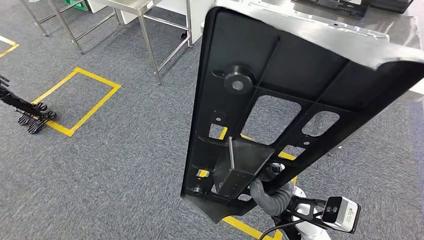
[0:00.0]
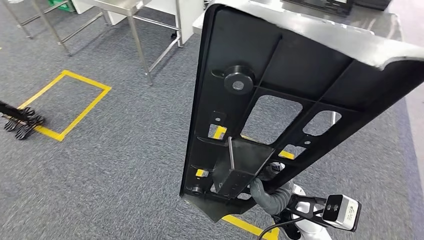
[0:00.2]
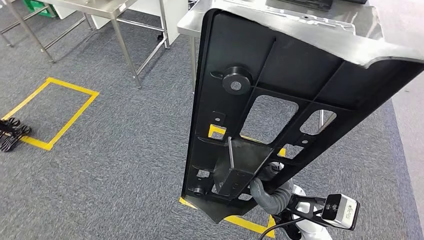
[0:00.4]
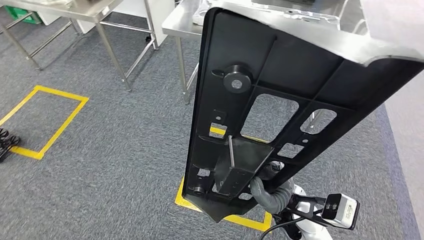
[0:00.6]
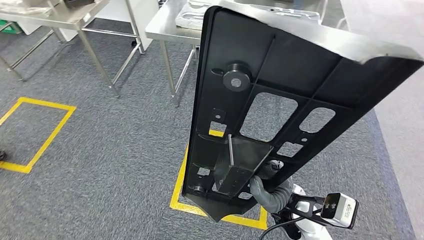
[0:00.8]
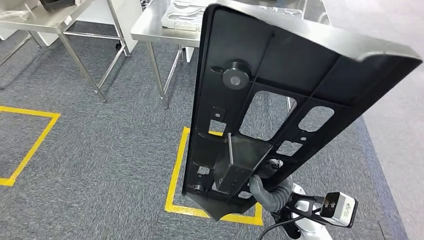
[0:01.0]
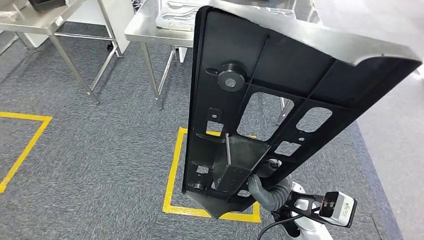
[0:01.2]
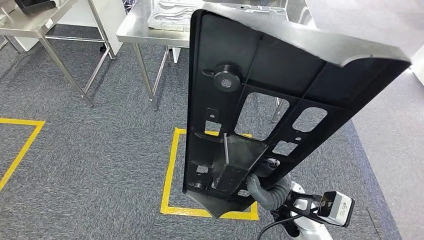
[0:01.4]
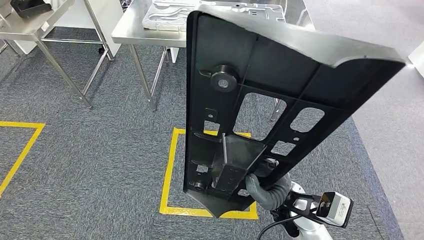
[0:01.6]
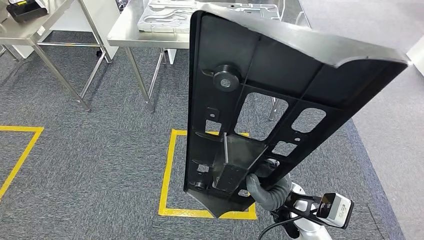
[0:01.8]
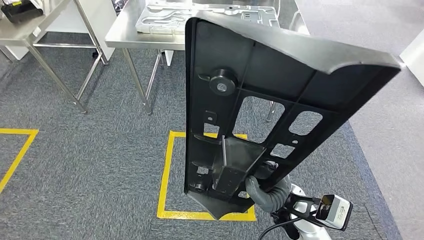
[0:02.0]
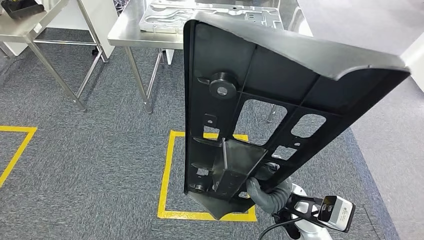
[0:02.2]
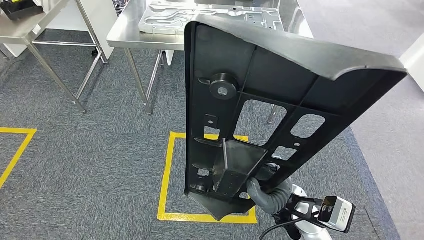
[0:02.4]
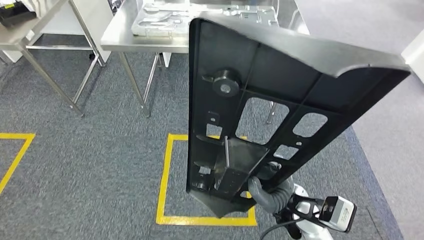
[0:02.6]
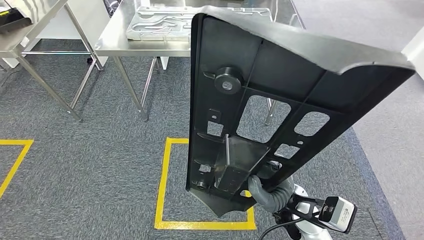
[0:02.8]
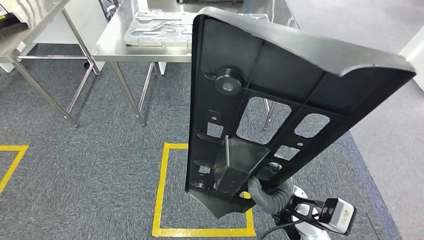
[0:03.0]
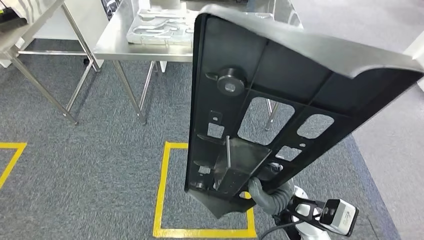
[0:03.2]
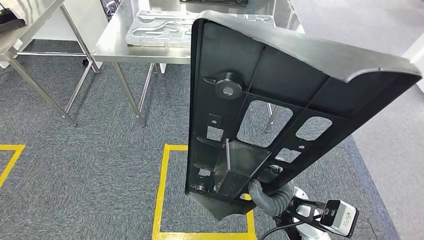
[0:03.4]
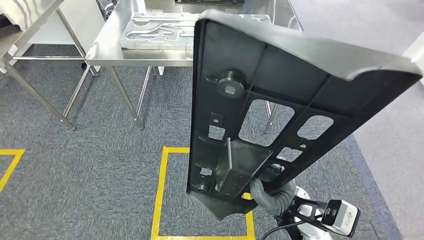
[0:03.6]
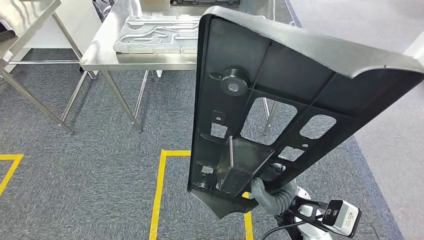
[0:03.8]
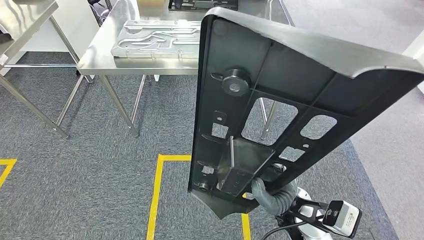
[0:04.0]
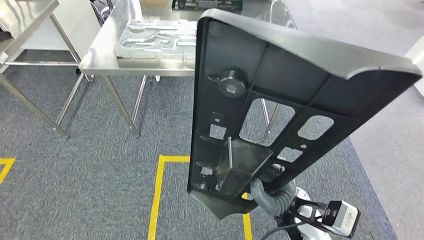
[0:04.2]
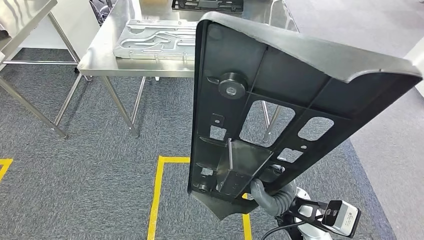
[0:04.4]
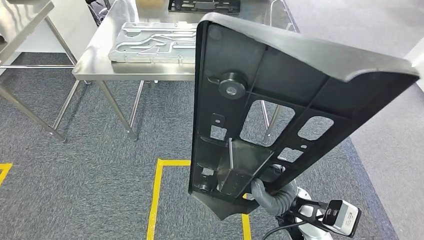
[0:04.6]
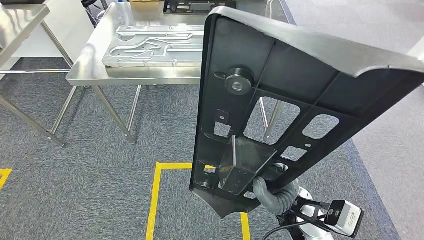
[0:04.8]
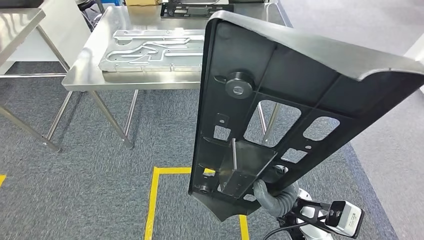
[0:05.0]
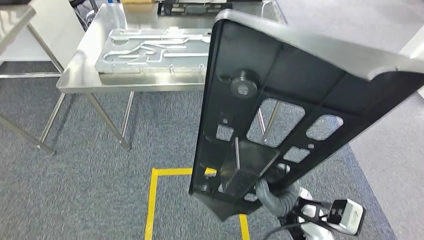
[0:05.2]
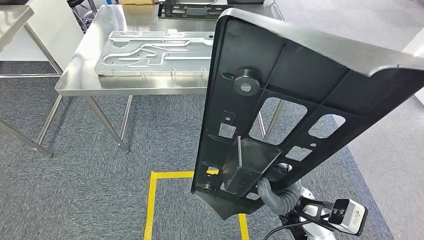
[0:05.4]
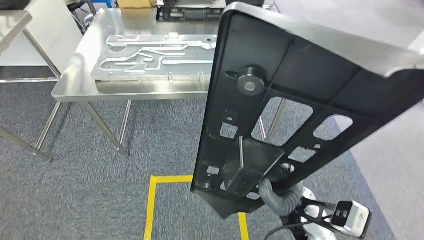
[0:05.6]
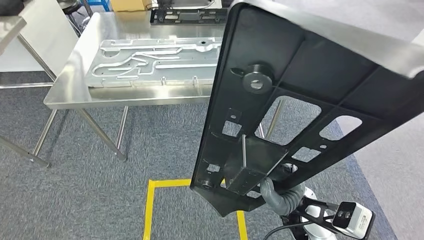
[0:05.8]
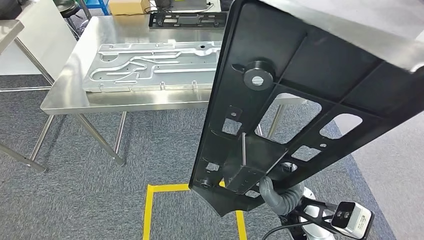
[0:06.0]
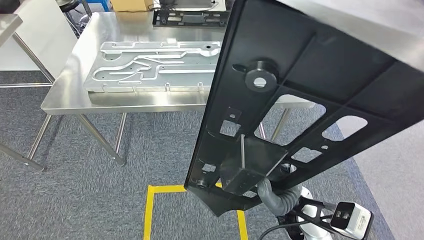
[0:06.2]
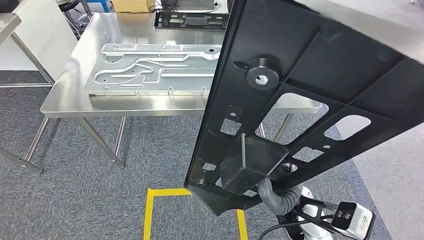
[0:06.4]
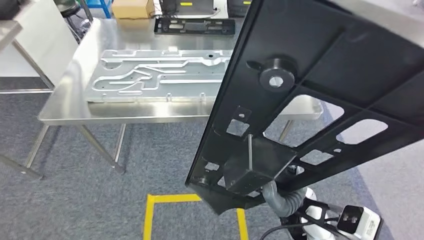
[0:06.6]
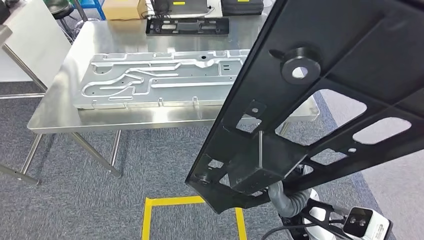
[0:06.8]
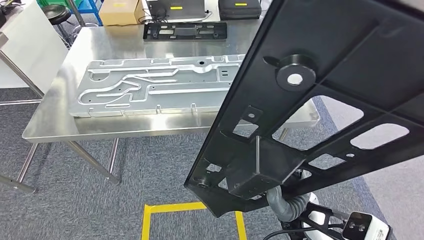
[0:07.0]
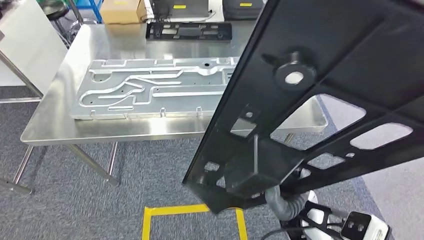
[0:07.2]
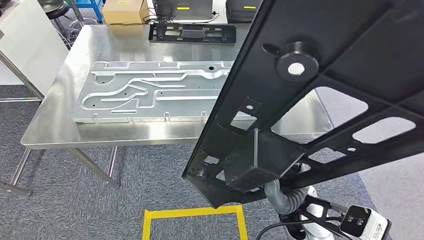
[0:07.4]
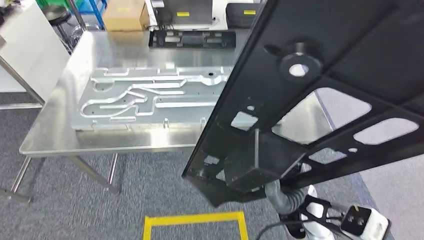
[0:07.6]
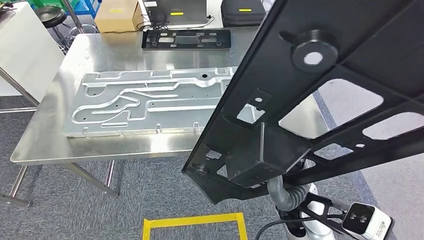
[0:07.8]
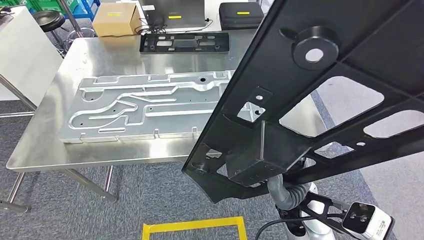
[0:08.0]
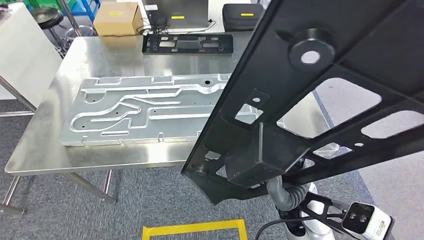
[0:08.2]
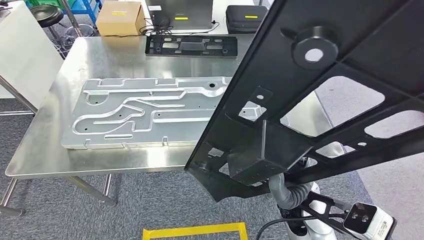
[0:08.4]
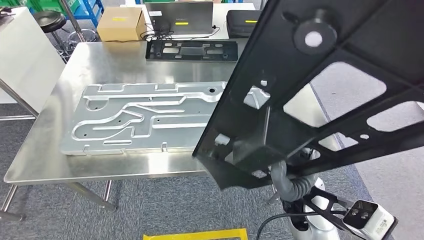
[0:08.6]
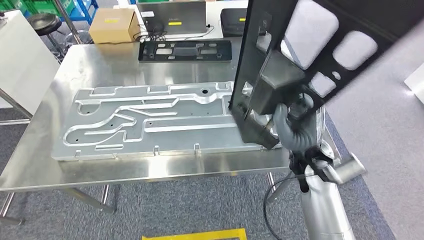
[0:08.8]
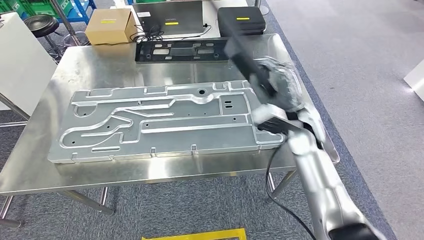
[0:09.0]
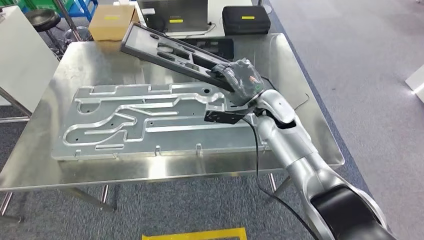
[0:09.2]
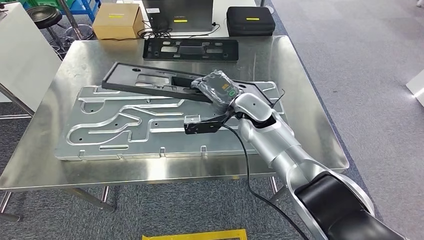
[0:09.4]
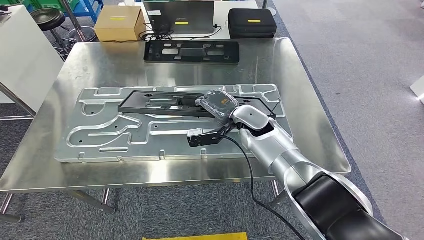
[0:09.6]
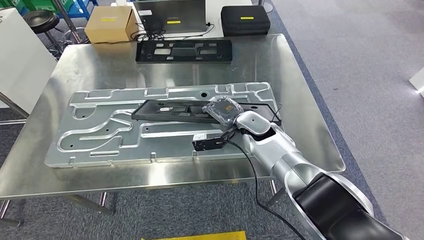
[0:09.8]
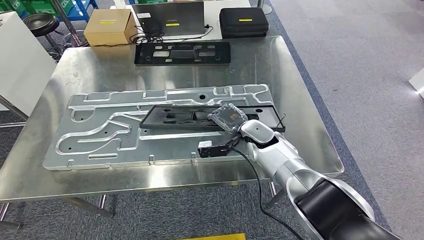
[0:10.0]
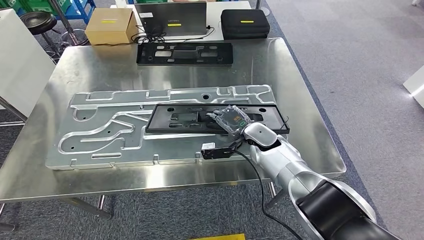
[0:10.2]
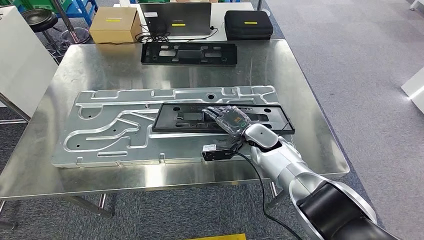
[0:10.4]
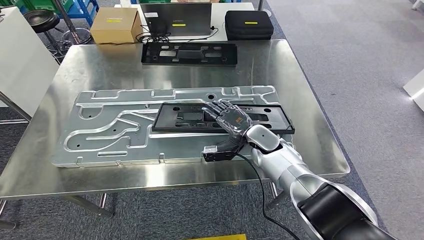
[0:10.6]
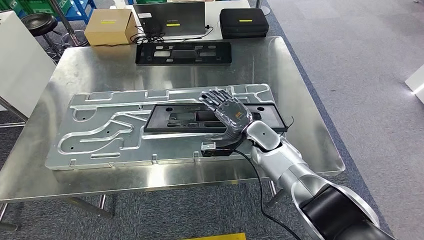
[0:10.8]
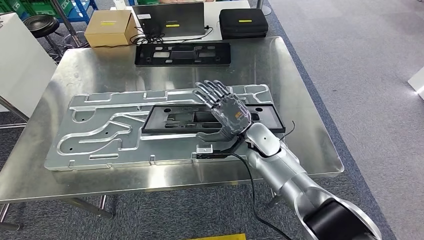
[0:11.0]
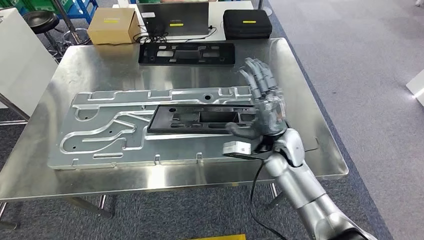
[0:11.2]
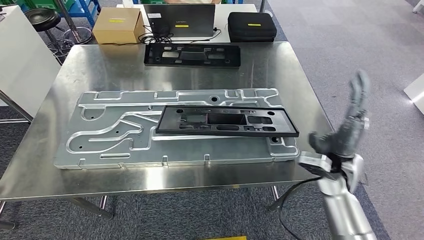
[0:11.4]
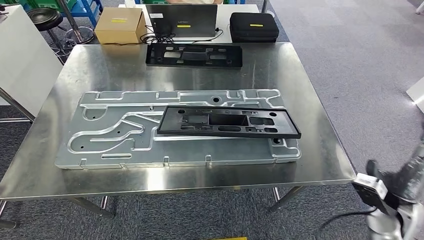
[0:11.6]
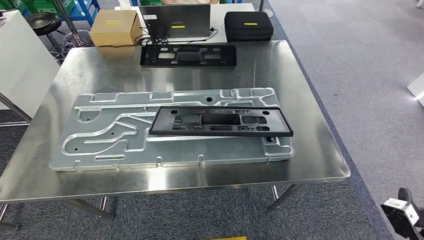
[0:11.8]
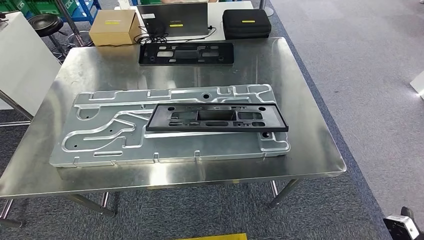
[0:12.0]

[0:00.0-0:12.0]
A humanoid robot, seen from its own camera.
Step, 0:01.8 to 0:11.2: Insert the large material into the corresponding slot on the workbench.

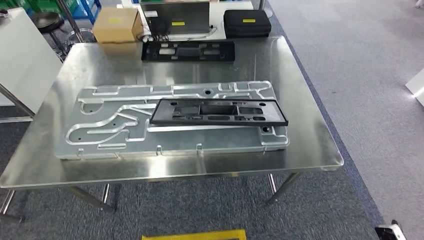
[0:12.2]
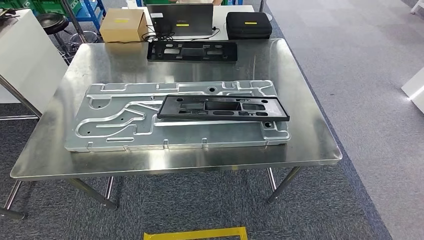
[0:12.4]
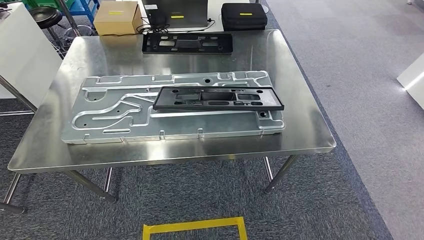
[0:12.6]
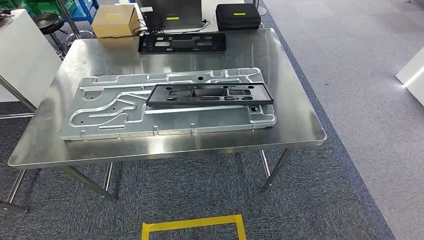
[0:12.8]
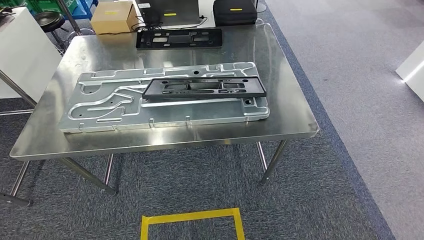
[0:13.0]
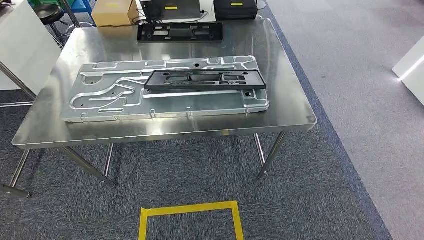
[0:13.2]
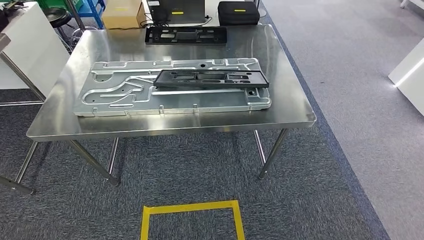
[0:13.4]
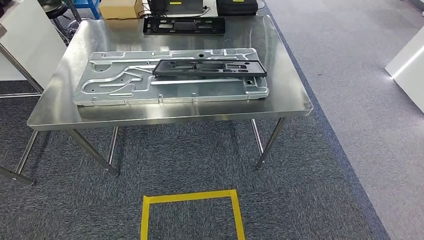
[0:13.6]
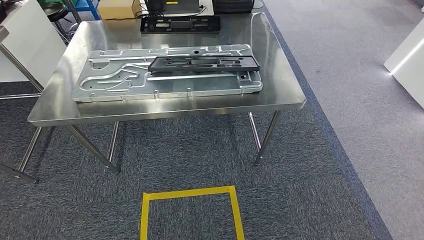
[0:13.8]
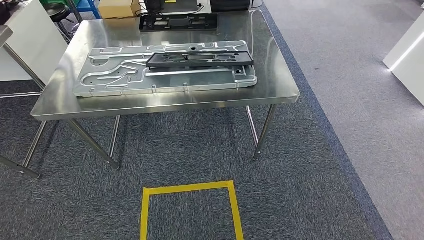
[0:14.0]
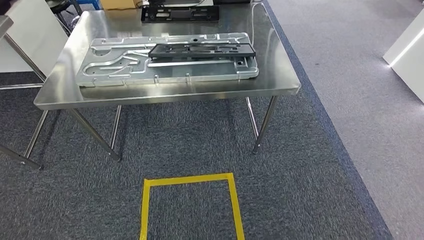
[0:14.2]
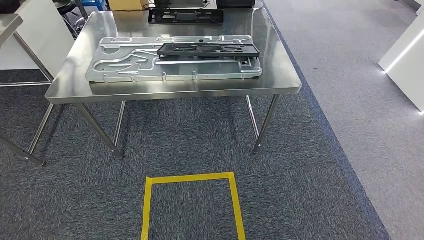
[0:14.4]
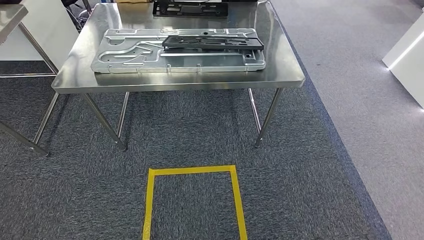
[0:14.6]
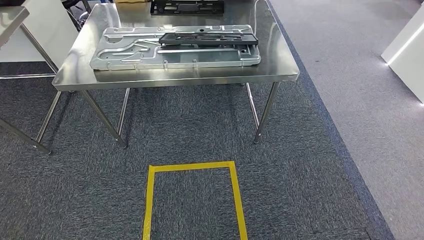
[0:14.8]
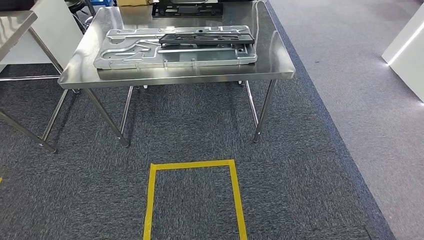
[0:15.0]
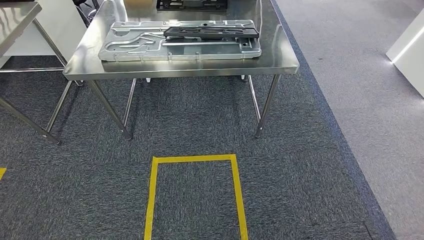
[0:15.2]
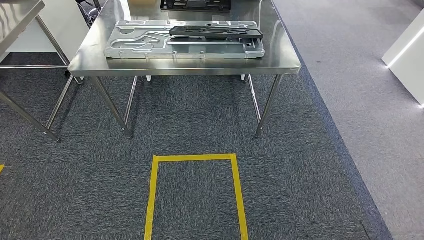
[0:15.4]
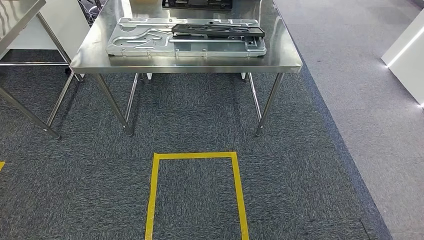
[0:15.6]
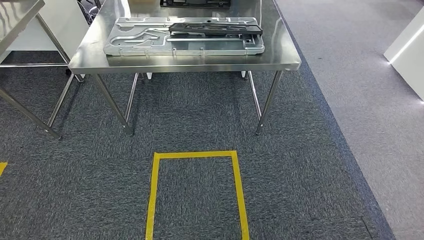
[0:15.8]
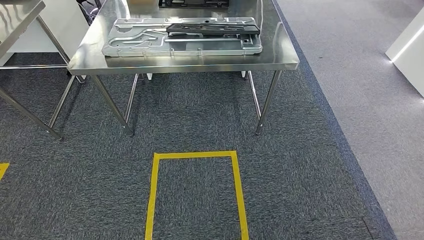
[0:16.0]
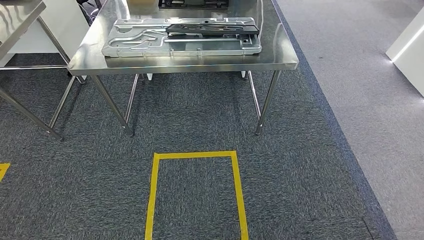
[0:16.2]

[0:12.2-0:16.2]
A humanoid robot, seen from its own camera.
Step, 0:12.2 to 0:16.2: Move to the initial position of the shelf.
